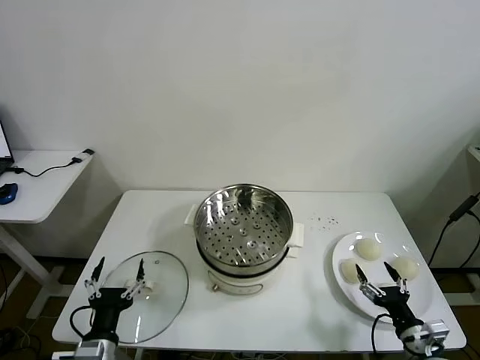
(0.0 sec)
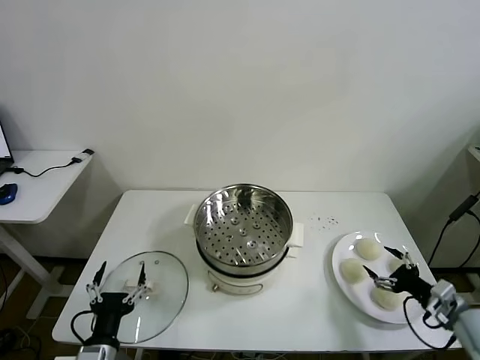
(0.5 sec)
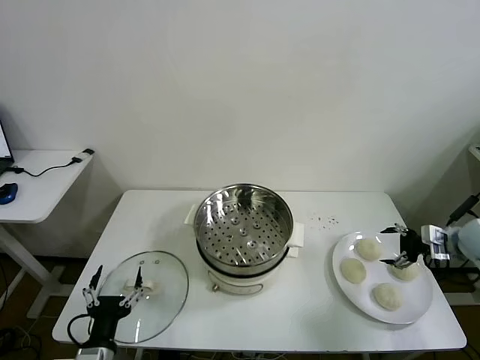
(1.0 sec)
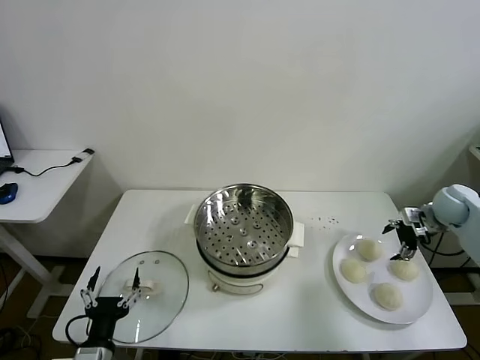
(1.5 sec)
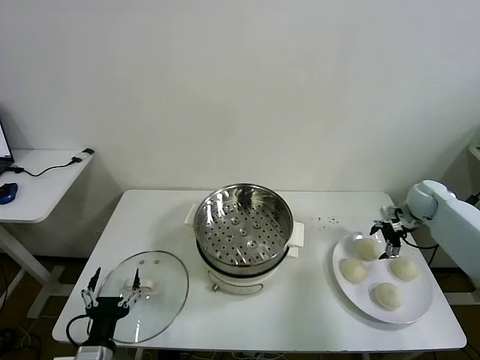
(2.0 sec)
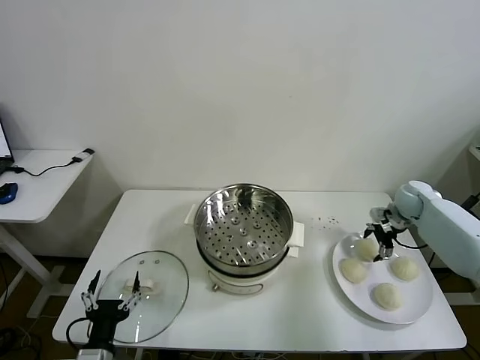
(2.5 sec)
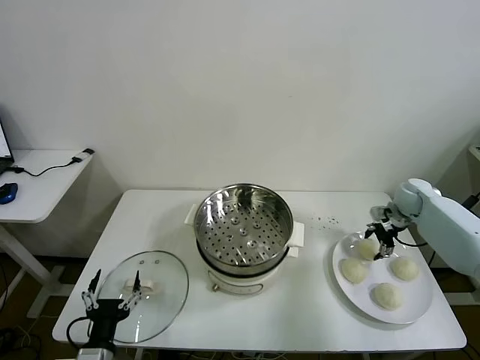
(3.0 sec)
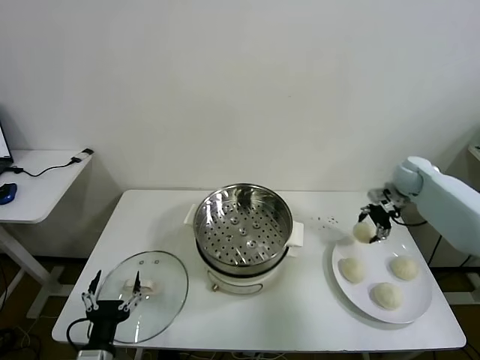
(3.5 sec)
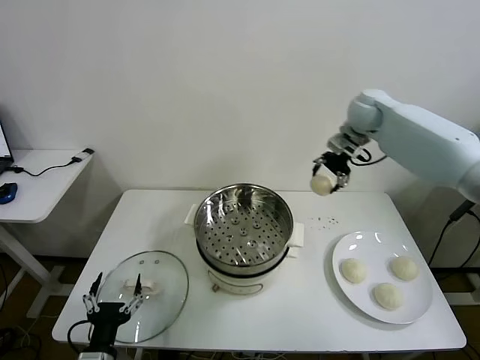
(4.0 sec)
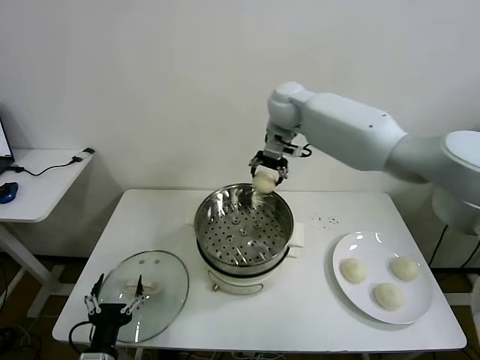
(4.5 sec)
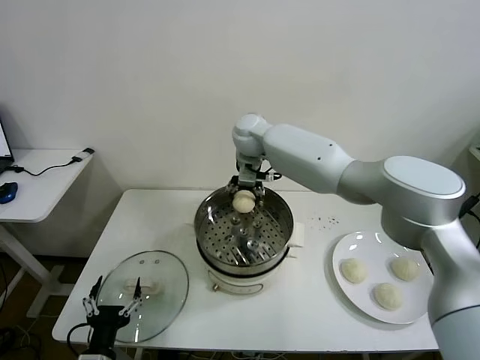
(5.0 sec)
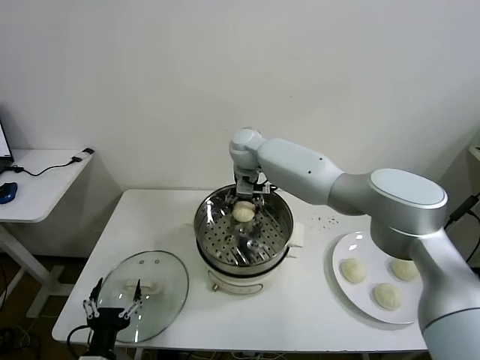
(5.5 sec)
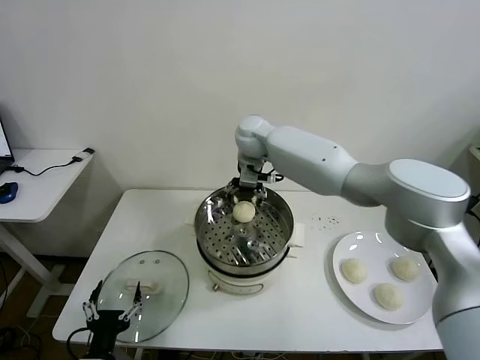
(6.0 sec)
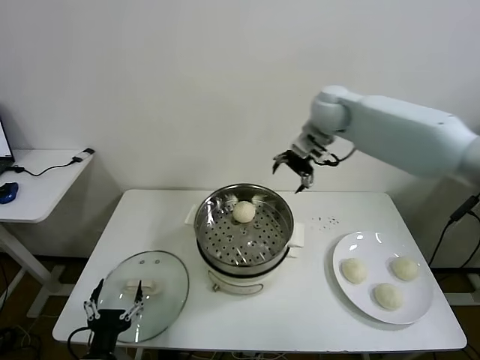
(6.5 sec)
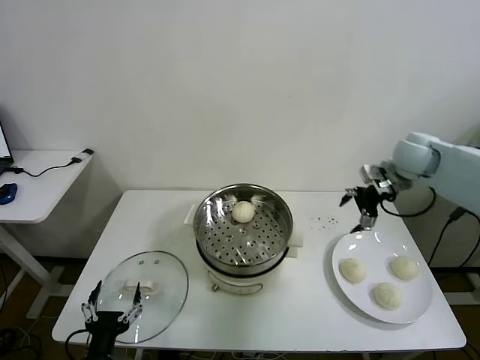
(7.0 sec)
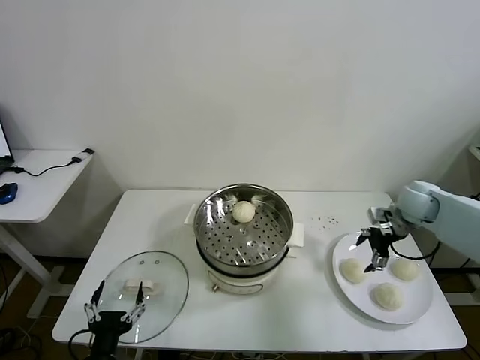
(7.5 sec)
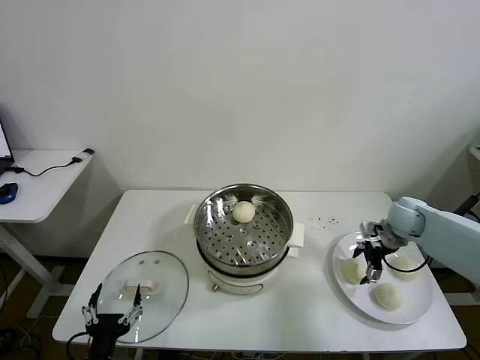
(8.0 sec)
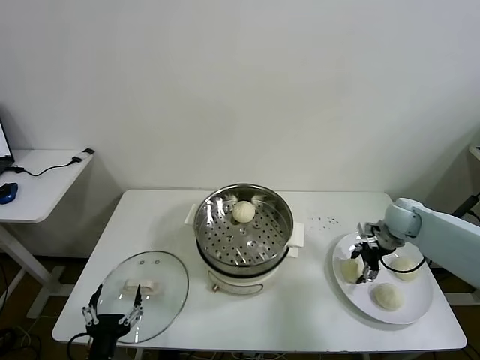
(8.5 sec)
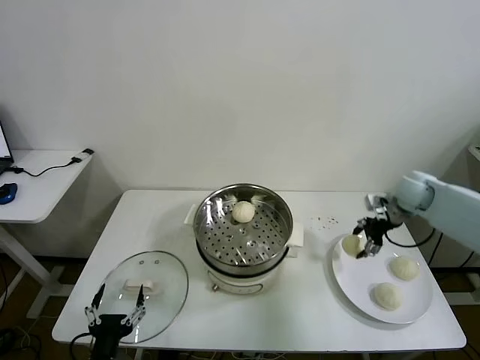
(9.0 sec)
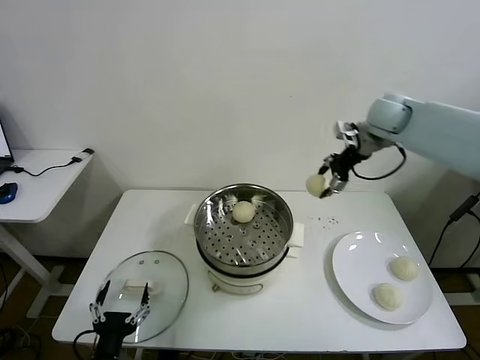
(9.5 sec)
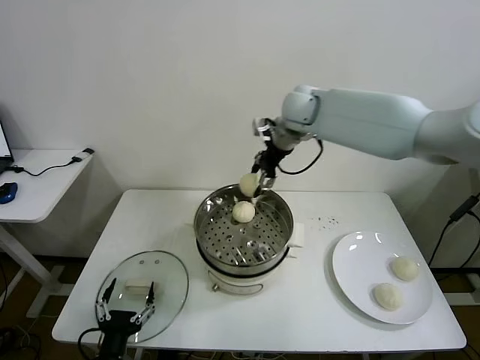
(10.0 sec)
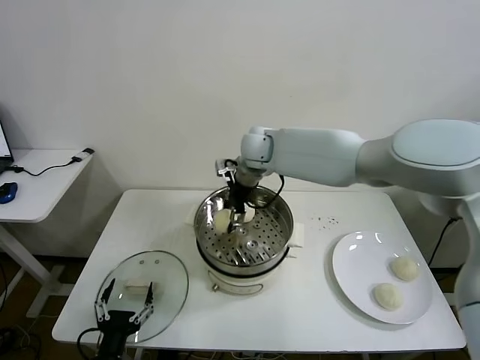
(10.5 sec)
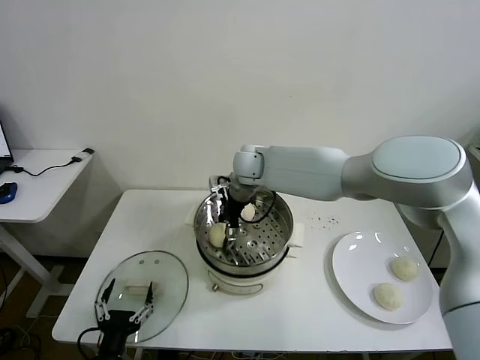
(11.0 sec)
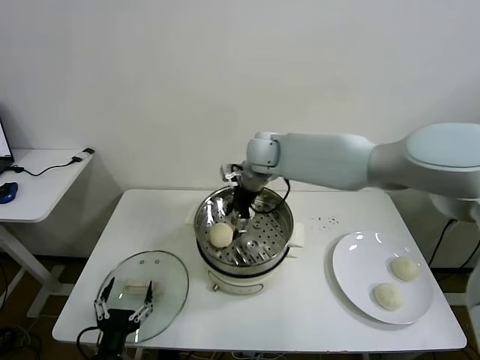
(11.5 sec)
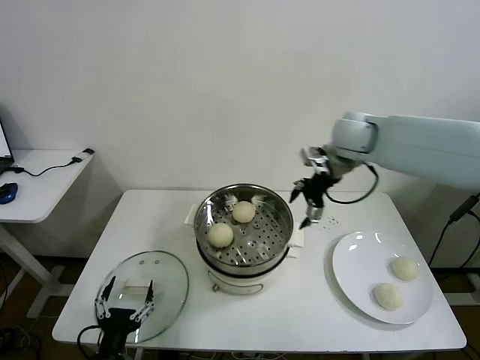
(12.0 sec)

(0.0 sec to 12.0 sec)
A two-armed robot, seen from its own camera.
Task of the whole recording: take steamed baozi put them in steamer then cover it.
Step, 0.0 sec - 3.0 sec: Grasp the baozi in the plate with right gripper.
Step, 3.5 sec - 5.5 sec: Place the baozi on the steamer with right gripper.
Step, 6.0 sec - 8.5 sec: Grasp the baozi in the plate with right gripper.
Step, 9.0 sec - 11.5 sec: Place the baozi on the steamer with right gripper.
2.0 sec - 4.0 sec: The right gripper is displaced upward and to the left by some 30 cm, and closes up.
4.0 sec - 6.0 sec: The right gripper shifts some 20 cm to the left, and opens its fingers.
6.0 sec - 8.0 sec: The right gripper heads to the right and downward, covering roughly 40 cm.
8.0 sec - 10.0 sec: The right gripper goes some 40 cm to the left and upward, and closes.
10.0 sec - 12.0 sec: The right gripper is displaced to the right and backward by approximately 15 cm, and opens.

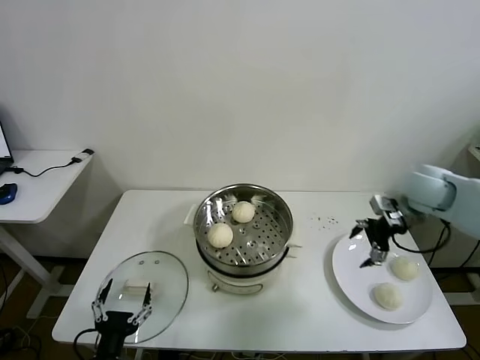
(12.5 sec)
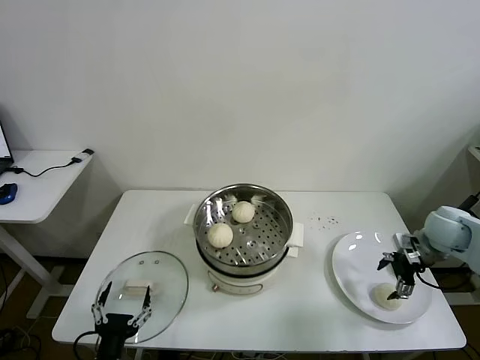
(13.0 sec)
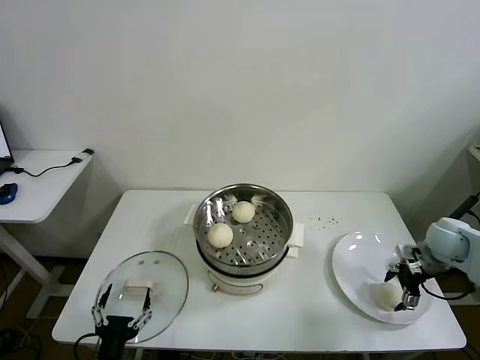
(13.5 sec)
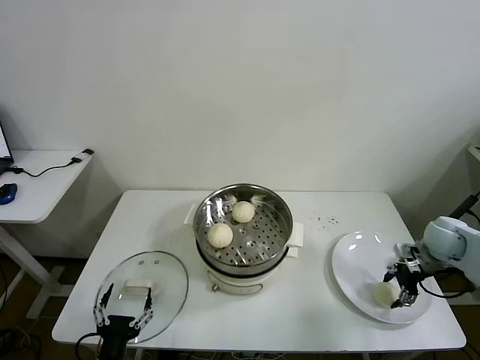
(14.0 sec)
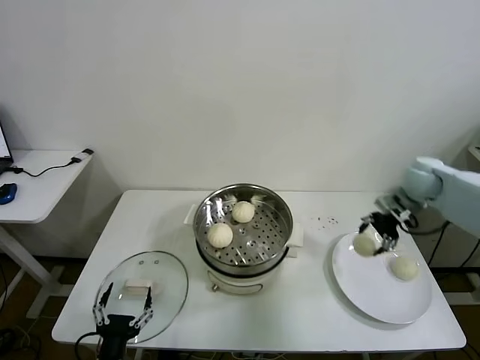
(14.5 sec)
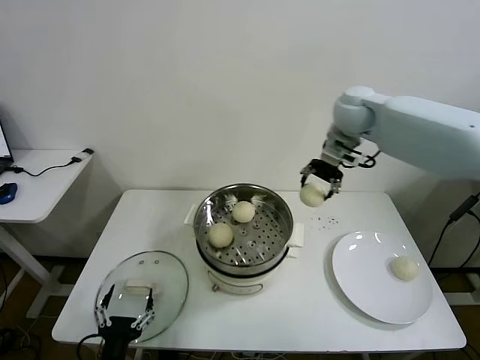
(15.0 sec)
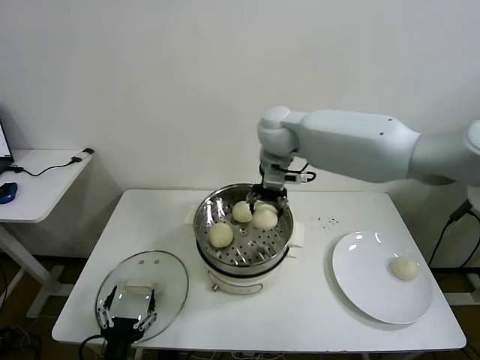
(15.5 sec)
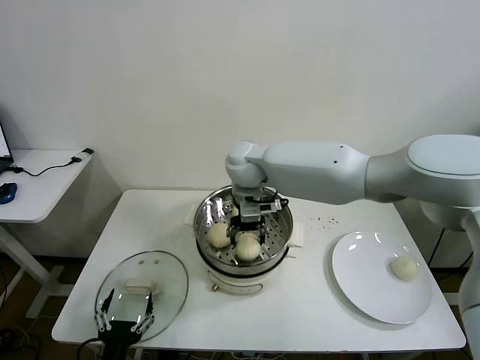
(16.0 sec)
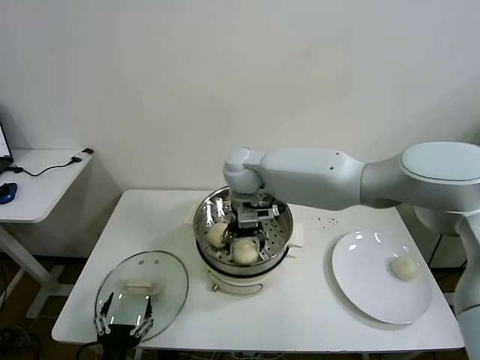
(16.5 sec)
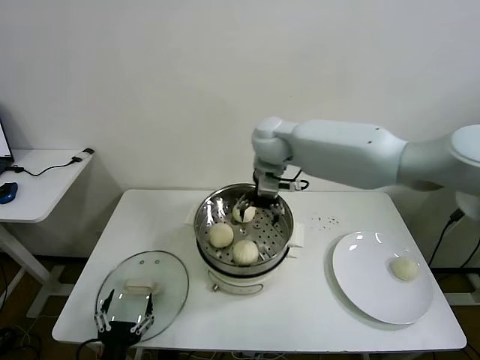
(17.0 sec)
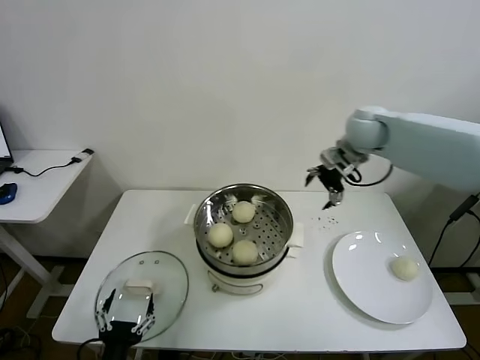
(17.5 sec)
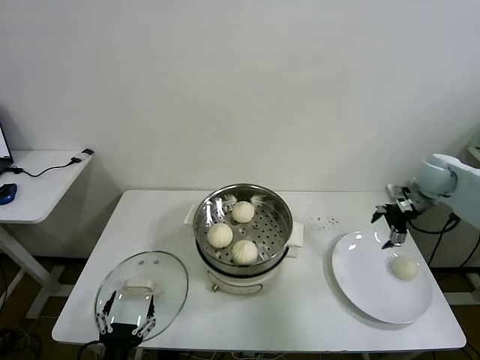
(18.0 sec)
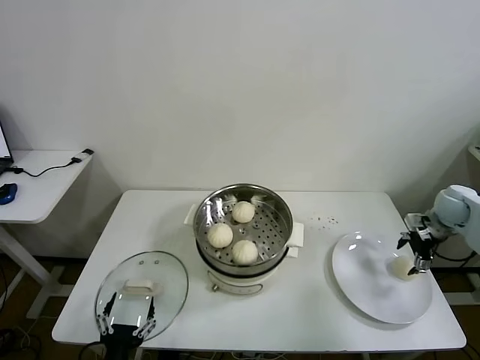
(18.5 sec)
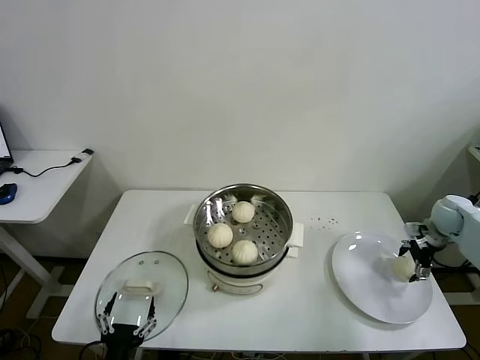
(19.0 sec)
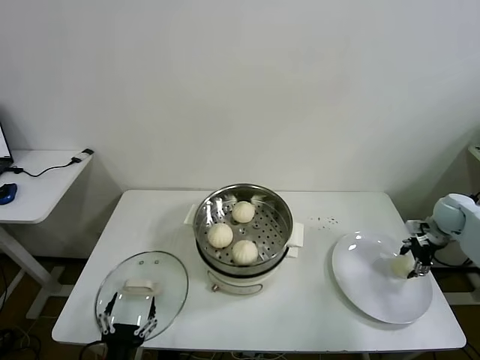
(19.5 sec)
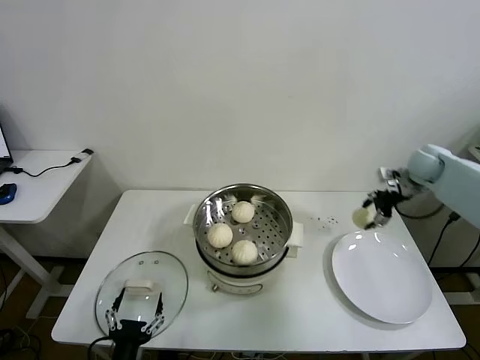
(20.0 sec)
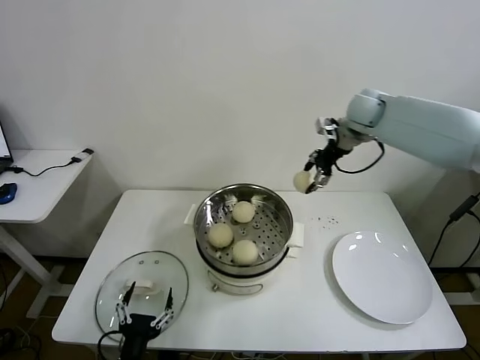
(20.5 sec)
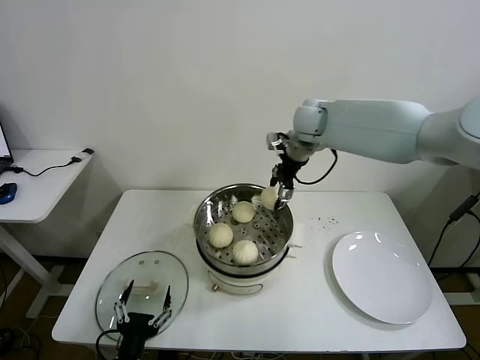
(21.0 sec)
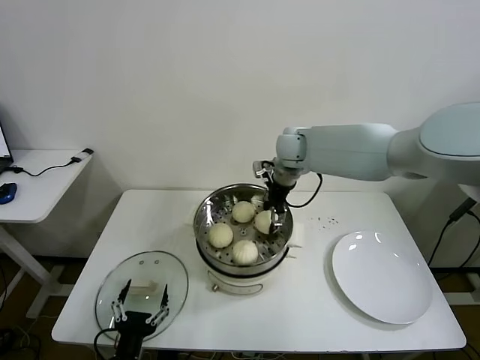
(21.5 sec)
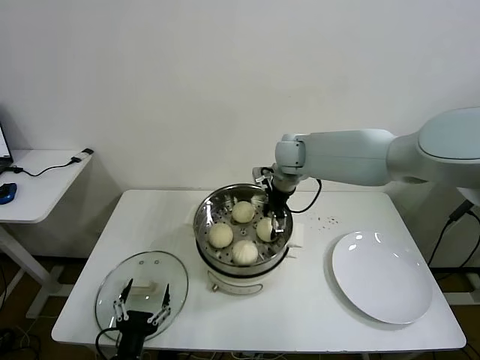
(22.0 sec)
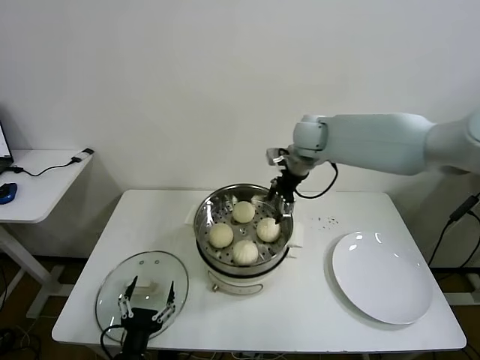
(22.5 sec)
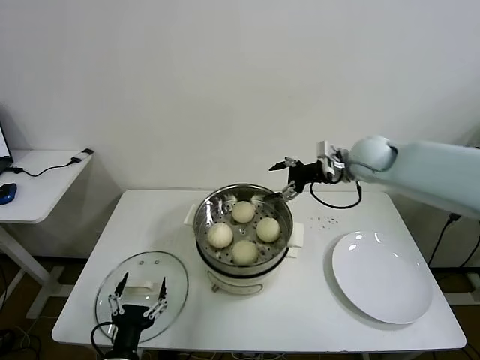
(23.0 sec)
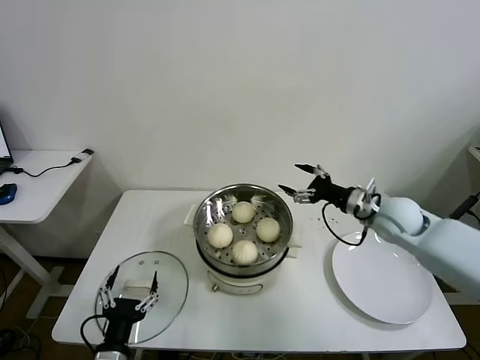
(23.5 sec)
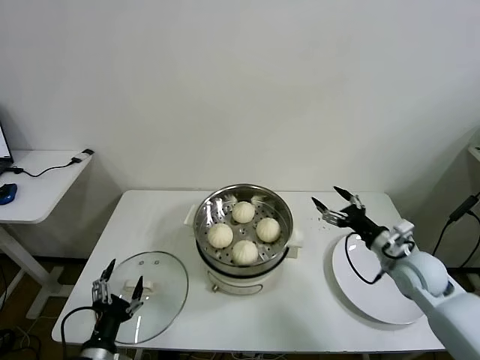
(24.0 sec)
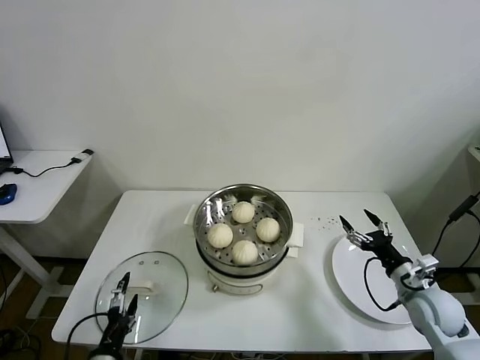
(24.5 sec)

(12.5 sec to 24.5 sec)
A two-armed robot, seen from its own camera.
Task of the whole recording: take steamed baozi put them in steamer then cover it.
Step, 12.5 sec - 14.0 sec: Grasp the baozi in the plate with right gripper.
Step, 14.5 sec - 16.5 sec: Place the baozi on the steamer with right gripper.
Step, 17.0 sec - 19.0 sec: Grasp the baozi in the plate with right gripper.
Step, 19.5 sec - 22.0 sec: Place the baozi on the steamer with right gripper.
12.5 sec - 14.5 sec: The right gripper travels forward by approximately 5 cm, travels downward and back again, about 10 cm each way, and closes up.
14.5 sec - 16.5 sec: The right gripper travels to the left by some 40 cm, and opens.
16.5 sec - 18.5 sec: The right gripper travels to the right by some 50 cm.
18.5 sec - 20.5 sec: The right gripper moves to the left, upward and forward, roughly 35 cm, and closes up.
20.5 sec - 22.5 sec: The right gripper heads to the left, covering roughly 10 cm, and opens.
22.5 sec - 24.5 sec: The left gripper shifts roughly 5 cm to the left, while the right gripper heads backward, downward and to the right, covering about 50 cm.

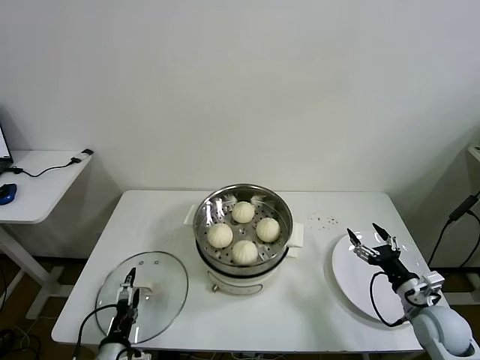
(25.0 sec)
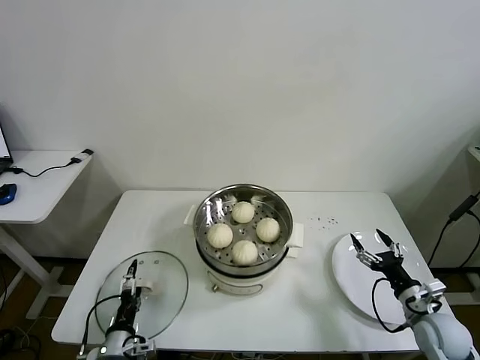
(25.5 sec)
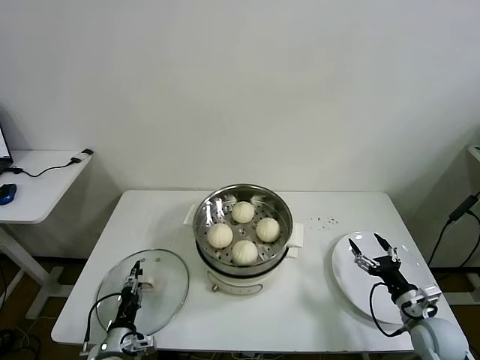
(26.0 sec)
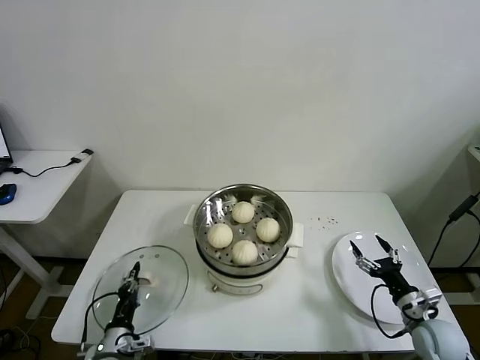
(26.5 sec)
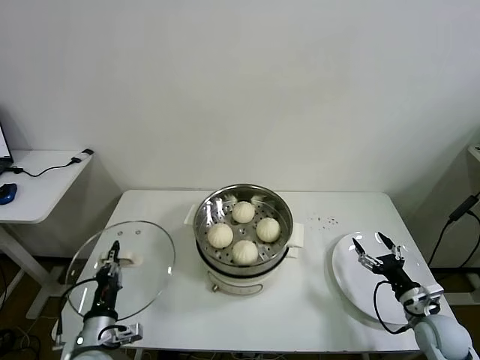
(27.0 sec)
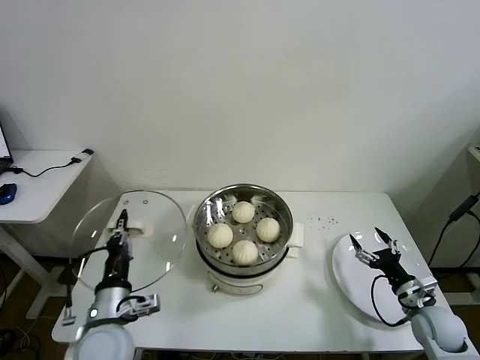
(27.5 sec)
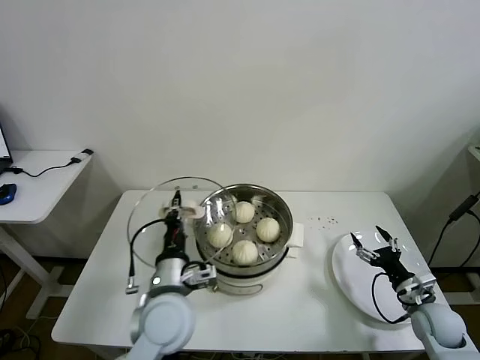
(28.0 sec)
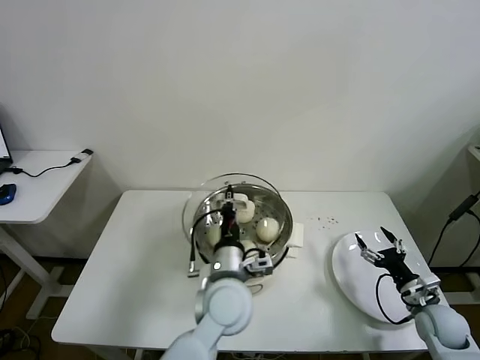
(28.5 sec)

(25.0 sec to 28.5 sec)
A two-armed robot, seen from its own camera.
Task of the whole recording: take steamed baozi put them in steamer then cover it.
25.0 sec - 27.0 sec: The left gripper shifts by approximately 5 cm, and closes its fingers.
27.0 sec - 28.5 sec: The left gripper moves to the right and upward, roughly 30 cm.
